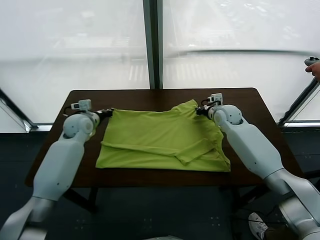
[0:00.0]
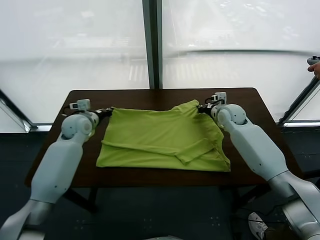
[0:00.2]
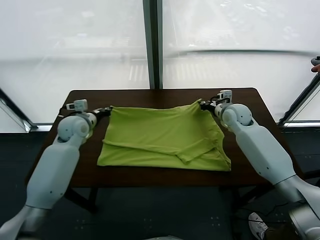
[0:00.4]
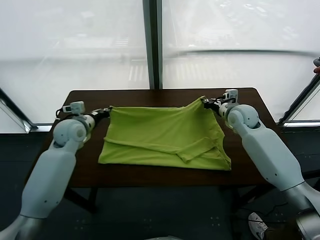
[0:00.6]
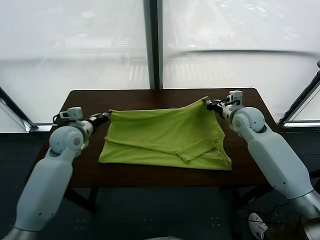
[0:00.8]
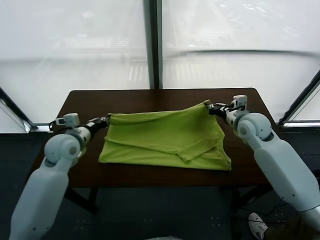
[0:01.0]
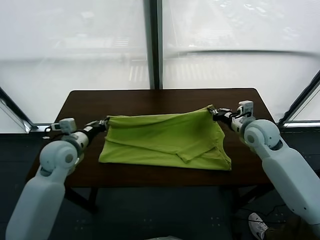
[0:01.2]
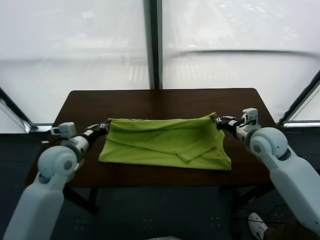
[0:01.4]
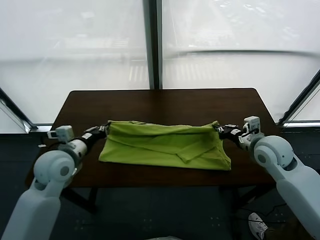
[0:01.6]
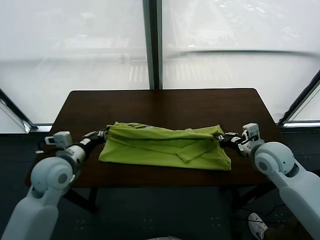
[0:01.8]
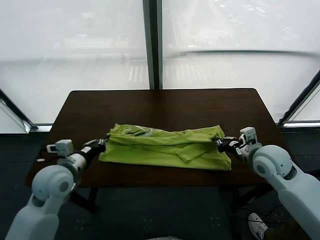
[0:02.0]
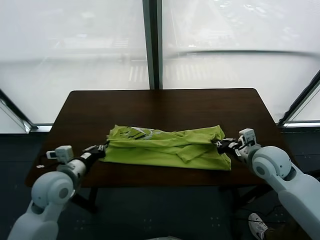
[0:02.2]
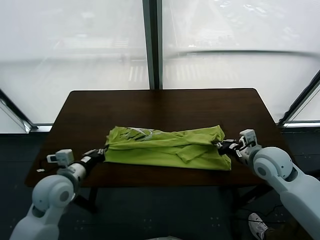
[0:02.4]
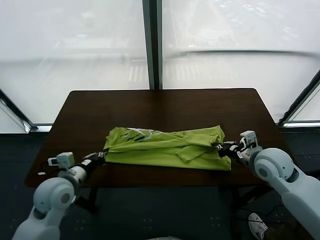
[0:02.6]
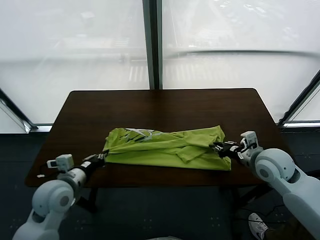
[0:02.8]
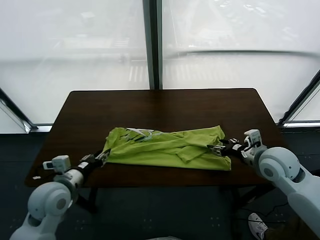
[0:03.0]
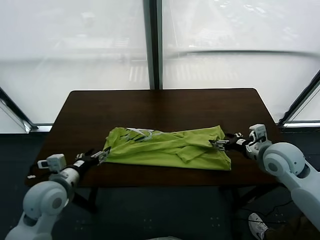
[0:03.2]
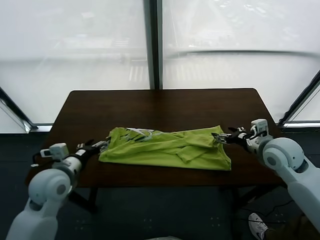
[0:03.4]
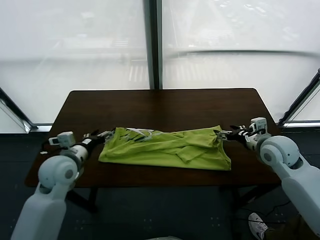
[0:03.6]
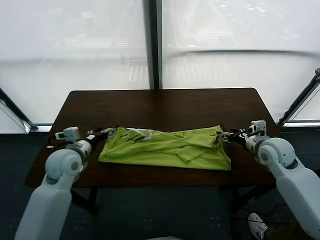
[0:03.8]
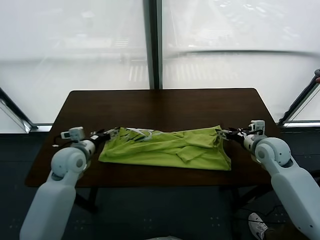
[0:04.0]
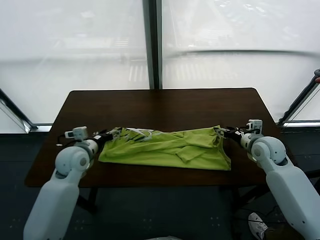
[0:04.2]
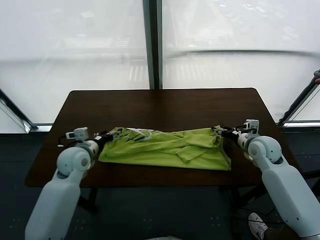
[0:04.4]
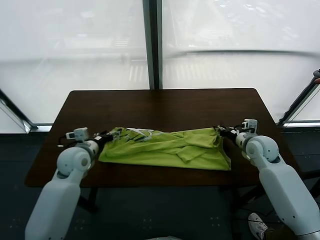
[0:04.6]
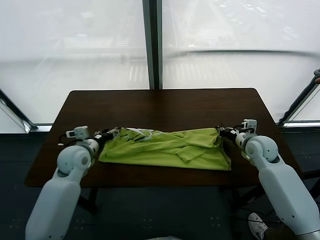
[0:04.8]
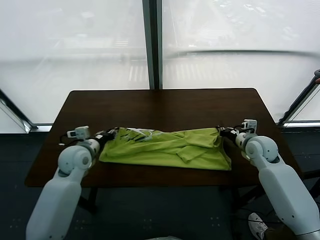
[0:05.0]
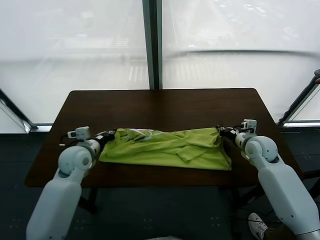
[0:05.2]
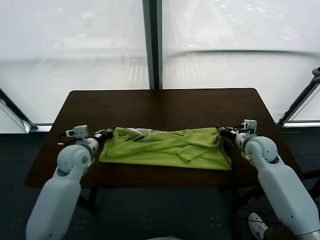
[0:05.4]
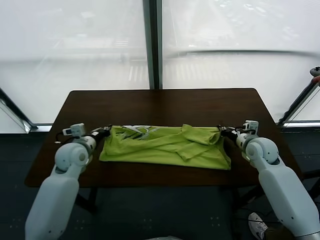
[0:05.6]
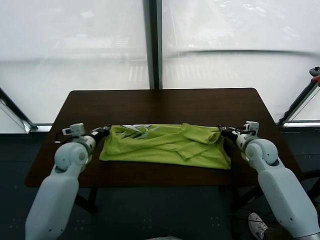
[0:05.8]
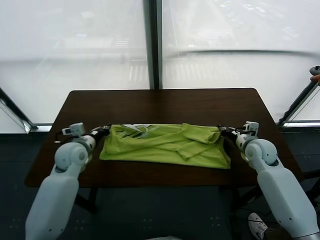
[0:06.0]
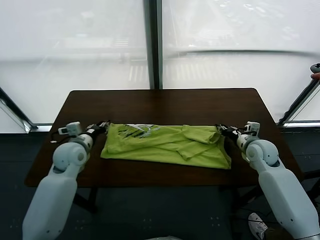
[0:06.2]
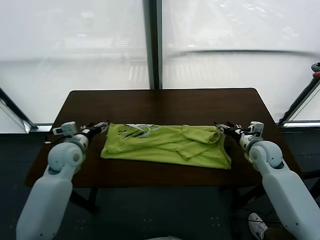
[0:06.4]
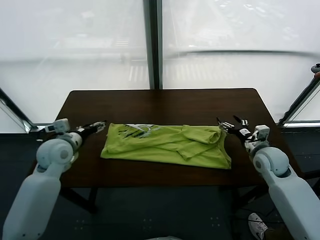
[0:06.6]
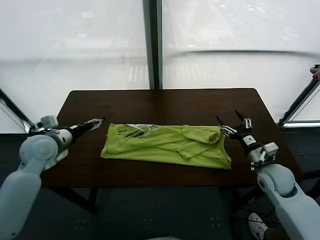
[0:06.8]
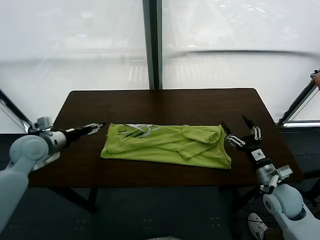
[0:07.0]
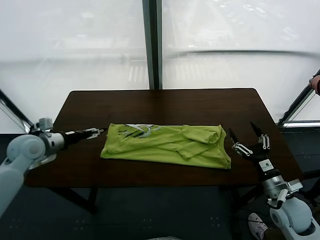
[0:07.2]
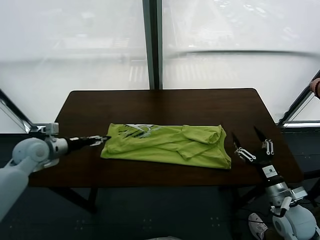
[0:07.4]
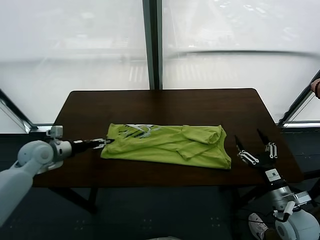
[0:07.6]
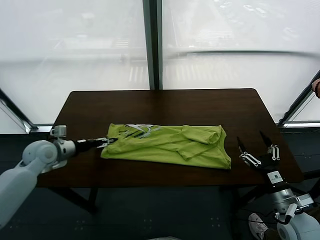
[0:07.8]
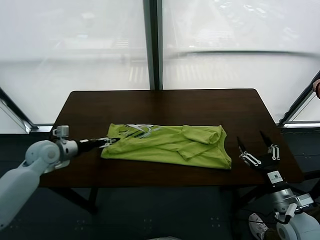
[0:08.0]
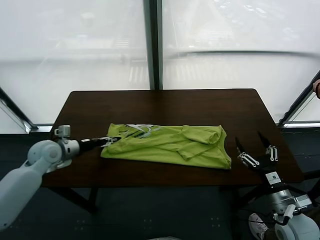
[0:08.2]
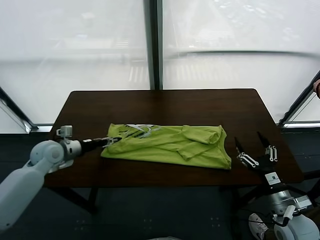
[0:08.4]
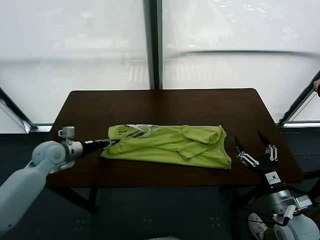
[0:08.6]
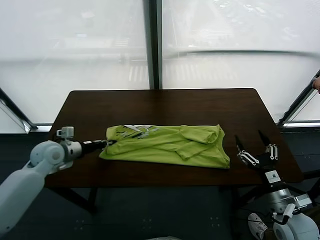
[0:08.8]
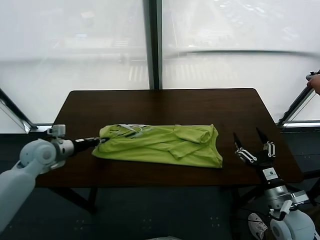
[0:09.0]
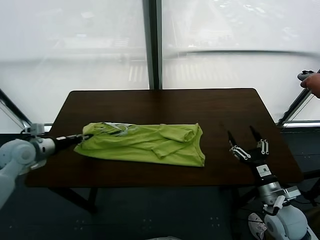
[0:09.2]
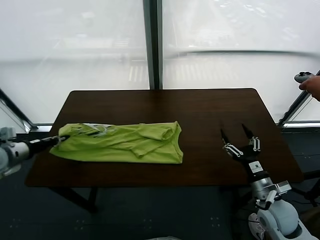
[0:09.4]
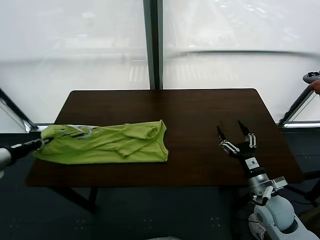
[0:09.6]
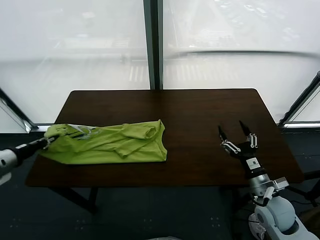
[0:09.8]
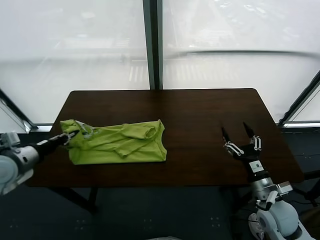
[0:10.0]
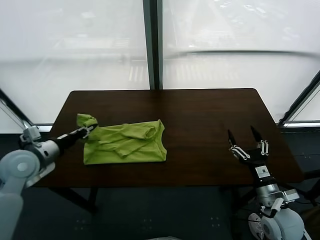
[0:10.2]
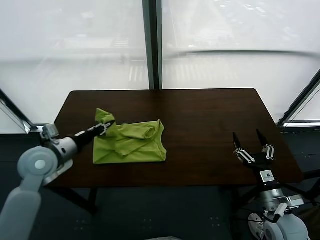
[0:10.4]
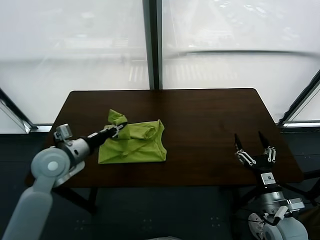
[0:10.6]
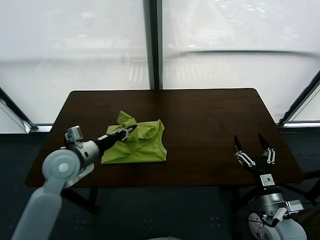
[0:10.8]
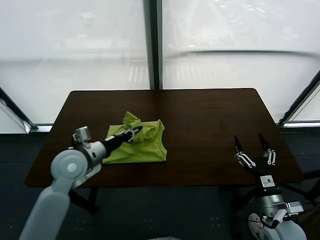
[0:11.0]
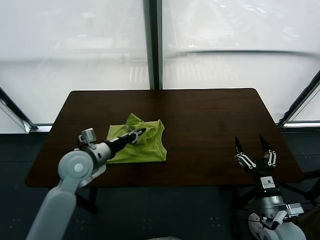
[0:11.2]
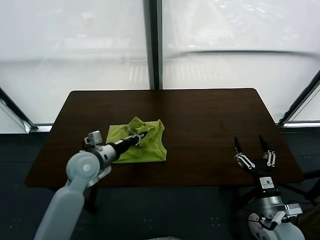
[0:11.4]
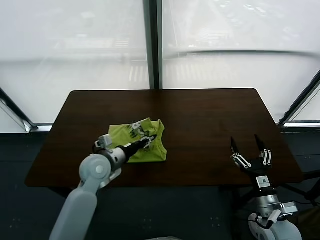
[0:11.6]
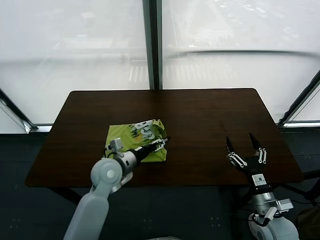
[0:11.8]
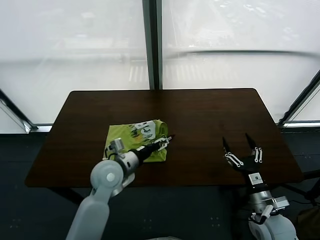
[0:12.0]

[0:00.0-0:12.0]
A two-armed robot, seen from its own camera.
Task of the whole recording: fold and organize the clothes.
Step, 0:00.2 to 0:03.0: use both grippers to drag the upper edge of the fabric backward and fold it over the lower edge.
Step, 0:03.2 to 0:08.8: use the left gripper to clamp the left edge of the fabric.
Step, 0:09.0 to 0:12.0: use the left gripper to drag the left edge of the fabric to the left and folds it over the right edge.
0:00.0 to 0:01.6: The grippers both shift backward by roughly 20 cm.
0:01.6 to 0:03.0: The left gripper travels backward by about 5 cm, and opens up. The right gripper opens.
0:03.0 to 0:04.4: The right gripper travels downward and forward by about 10 cm, and closes. Meanwhile the left gripper shifts about 15 cm forward, and opens its fingers.
0:04.4 to 0:06.0: The left gripper closes its fingers.
0:06.0 to 0:07.6: The right gripper is displaced backward by about 25 cm, and opens up. Meanwhile the left gripper is displaced to the left by some 10 cm, and opens.
0:07.6 to 0:09.0: The left gripper closes.
0:09.0 to 0:10.4: The left gripper reaches some 10 cm to the left, then returns.
0:10.4 to 0:12.0: The left gripper shifts some 20 cm to the right and downward, and opens up.

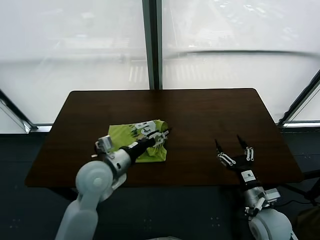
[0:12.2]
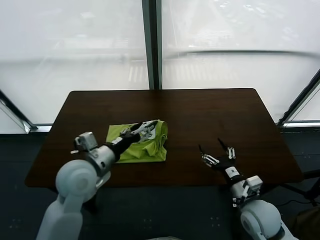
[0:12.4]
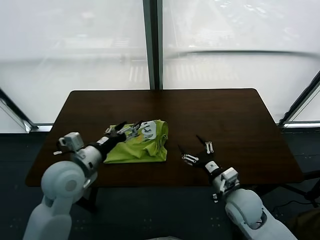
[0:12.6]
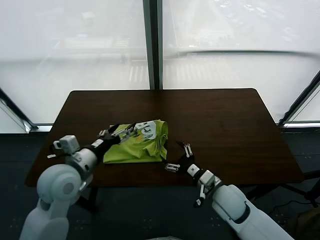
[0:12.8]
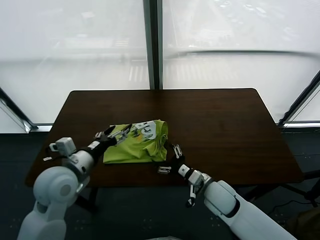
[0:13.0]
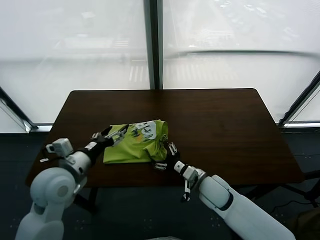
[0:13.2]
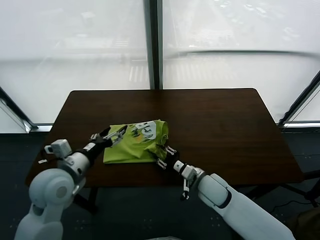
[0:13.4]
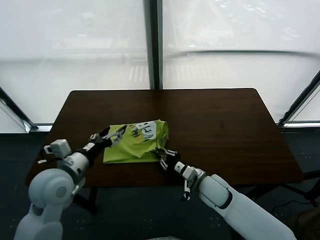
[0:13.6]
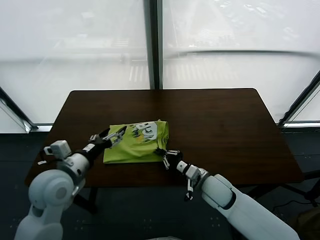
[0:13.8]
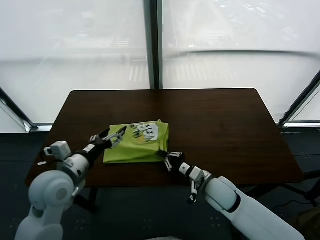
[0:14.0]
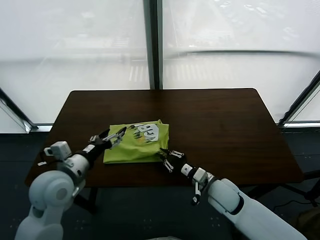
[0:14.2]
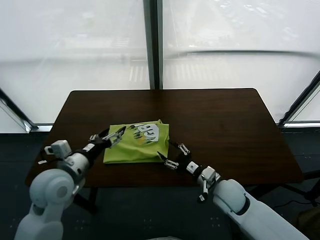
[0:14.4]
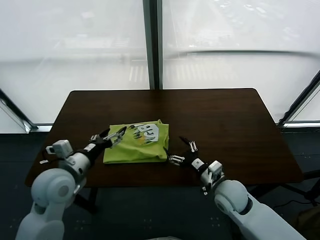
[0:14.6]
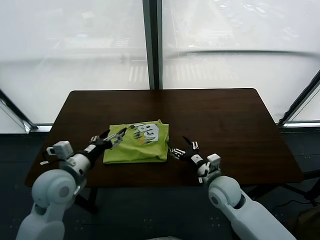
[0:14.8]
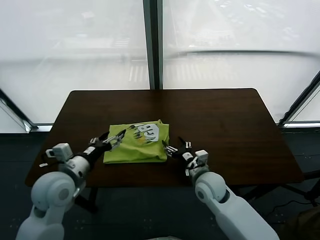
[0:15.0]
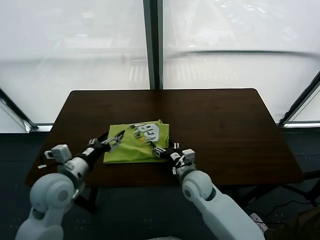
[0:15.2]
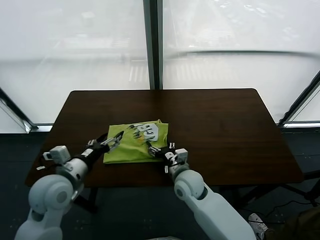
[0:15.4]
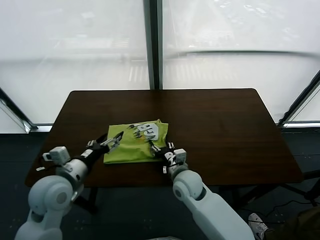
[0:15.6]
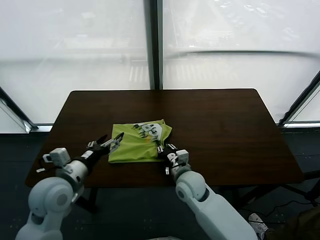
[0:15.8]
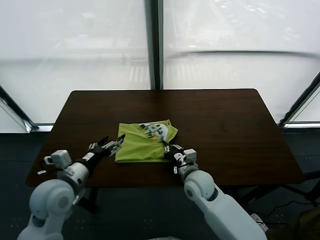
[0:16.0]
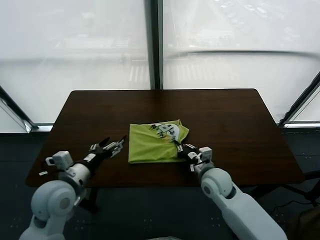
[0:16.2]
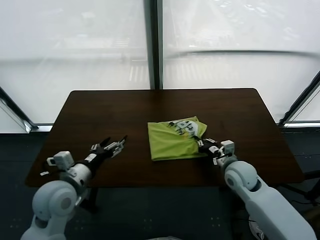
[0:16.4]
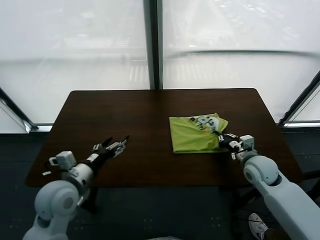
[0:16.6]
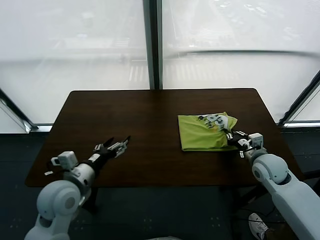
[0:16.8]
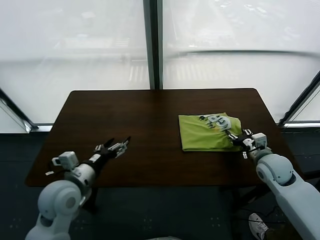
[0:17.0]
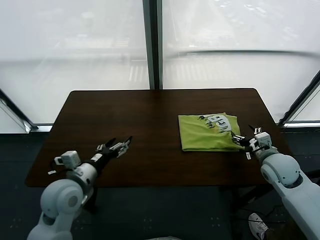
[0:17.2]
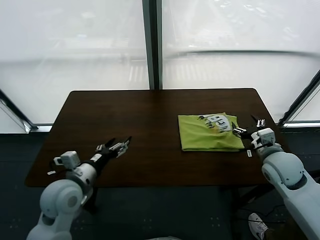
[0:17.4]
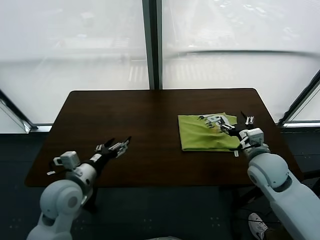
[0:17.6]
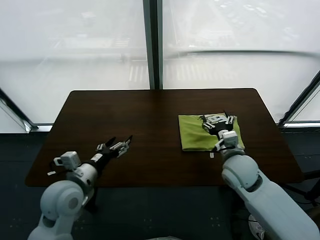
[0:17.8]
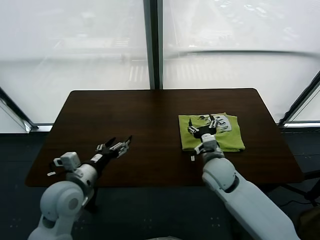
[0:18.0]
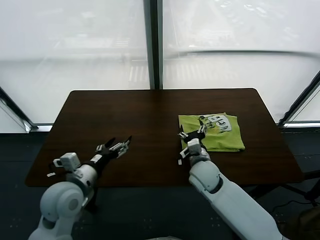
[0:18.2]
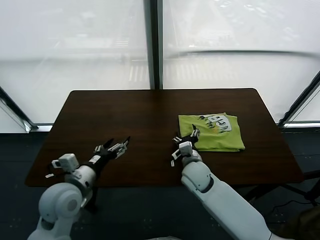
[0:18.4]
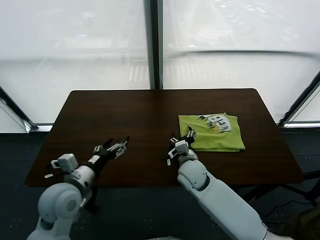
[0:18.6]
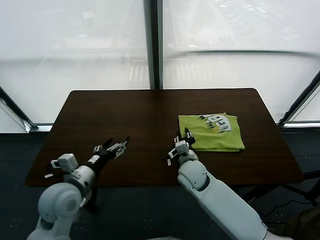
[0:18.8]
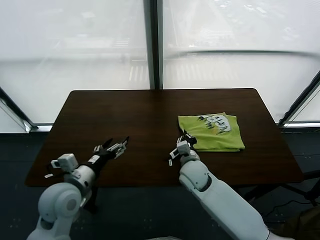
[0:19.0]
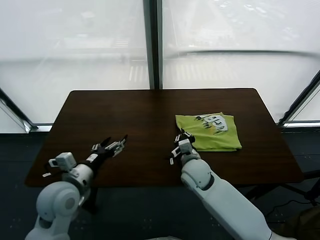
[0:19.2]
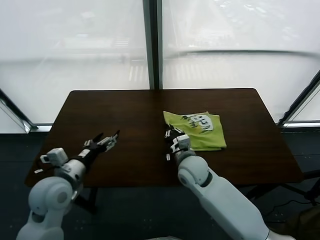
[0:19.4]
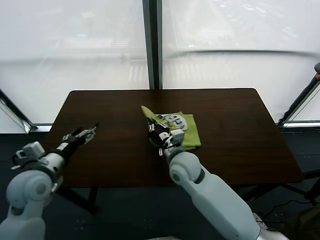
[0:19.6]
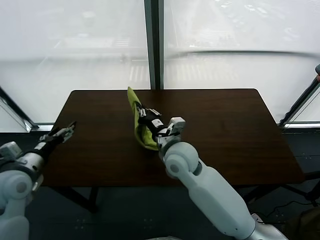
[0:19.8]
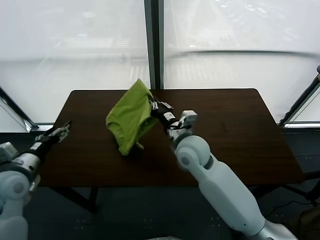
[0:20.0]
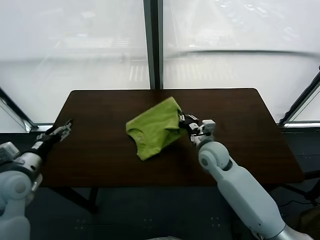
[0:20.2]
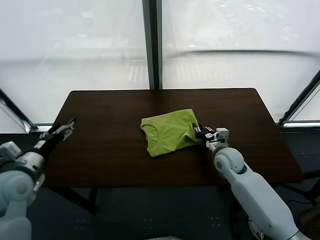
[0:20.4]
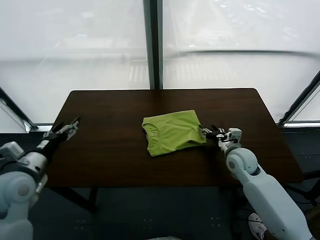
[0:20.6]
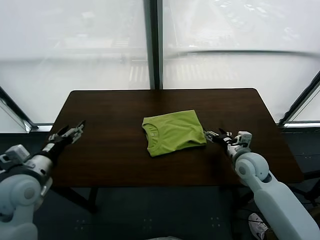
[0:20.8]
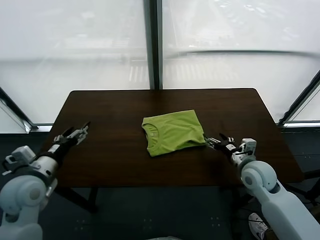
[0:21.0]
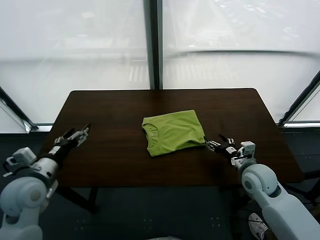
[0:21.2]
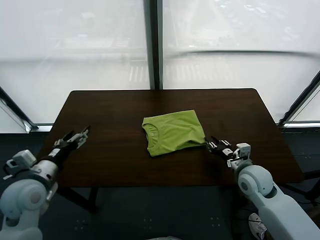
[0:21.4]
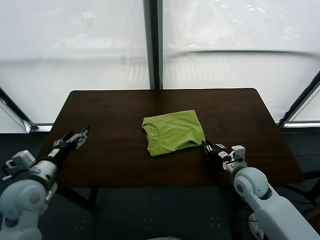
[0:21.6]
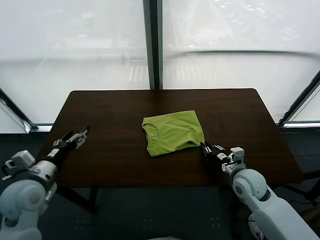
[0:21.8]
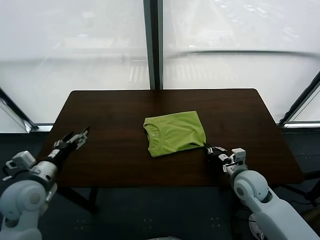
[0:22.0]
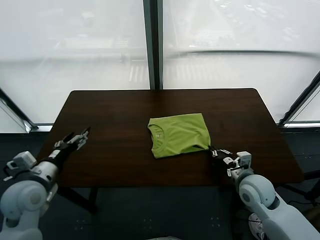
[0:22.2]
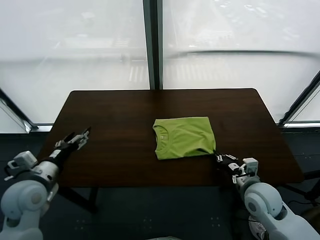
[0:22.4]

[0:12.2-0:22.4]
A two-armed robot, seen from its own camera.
Task of the whole recording: fold and organize the clothes.
Step, 0:12.2 to 0:17.0: Drag the clothes to the center of the table.
Step, 0:17.2 to 0:20.6: Flip the folded clothes over with right gripper.
0:12.2 to 0:13.6: The left gripper heads to the left, covering about 10 cm. Meanwhile the right gripper travels to the left and forward by some 15 cm, and closes up.
0:13.6 to 0:15.2: The right gripper goes some 5 cm to the left, and opens up.
0:15.2 to 0:16.6: The right gripper moves to the right, approximately 20 cm, and closes up.
0:16.6 to 0:18.0: The right gripper is displaced to the left by about 15 cm, and opens.
0:18.0 to 0:19.4: The right gripper is displaced to the left by about 10 cm, and closes.
0:19.4 to 0:21.0: The right gripper shifts roughly 20 cm to the right, and opens its fingers, while the left gripper goes some 10 cm to the left.
0:21.0 to 0:22.4: The right gripper shifts about 5 cm backward, and closes its fingers.
